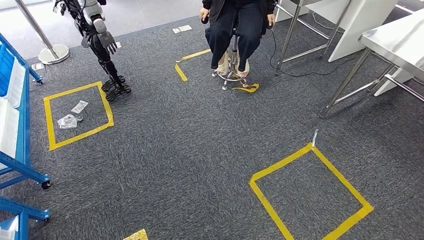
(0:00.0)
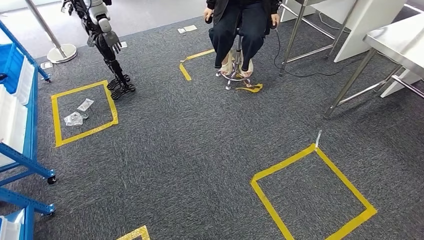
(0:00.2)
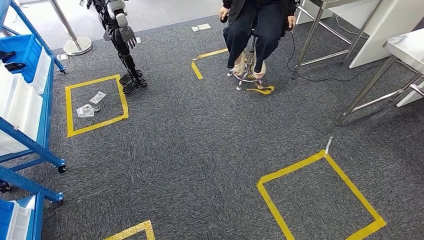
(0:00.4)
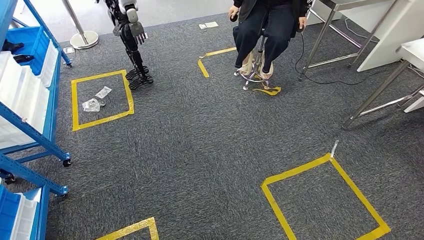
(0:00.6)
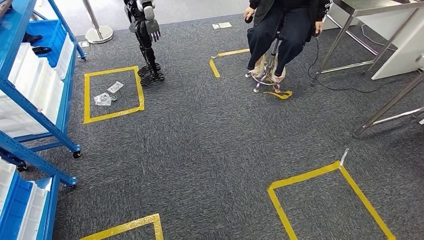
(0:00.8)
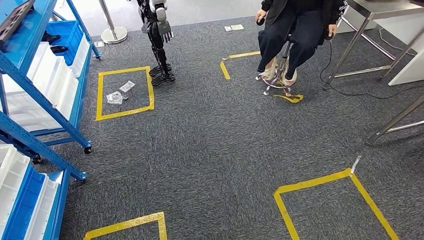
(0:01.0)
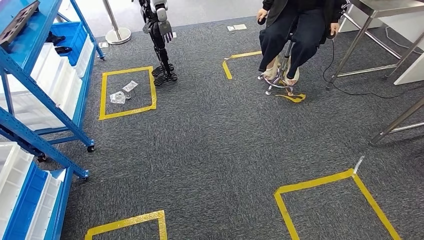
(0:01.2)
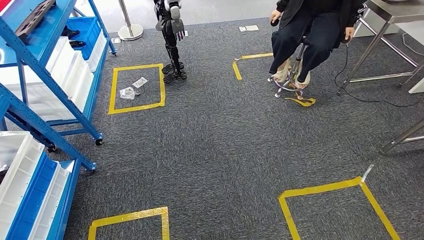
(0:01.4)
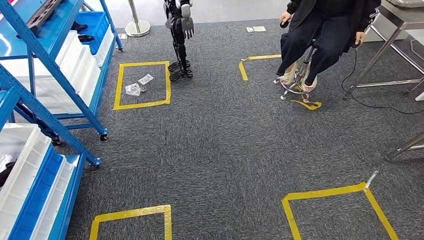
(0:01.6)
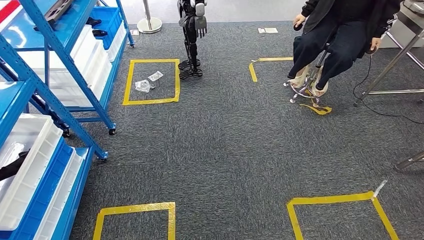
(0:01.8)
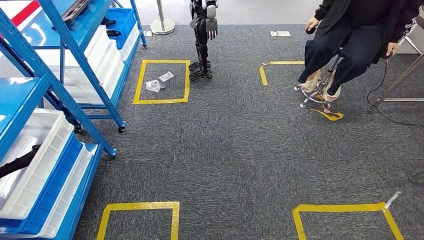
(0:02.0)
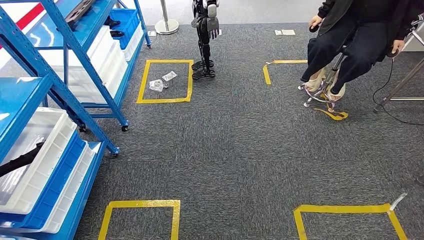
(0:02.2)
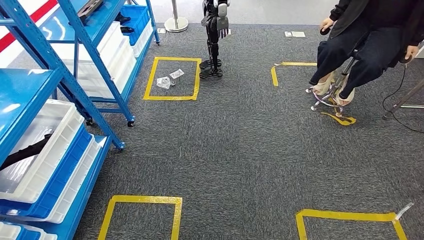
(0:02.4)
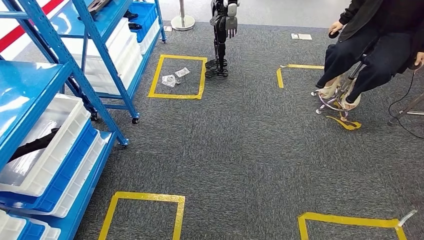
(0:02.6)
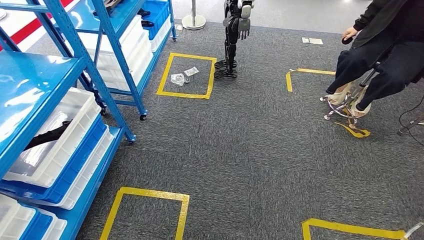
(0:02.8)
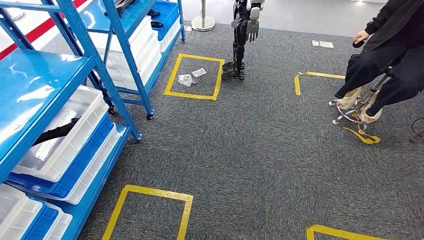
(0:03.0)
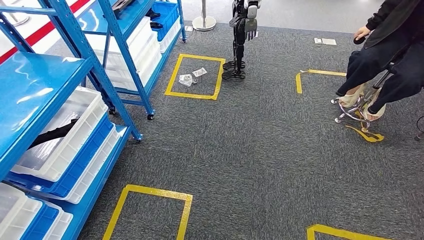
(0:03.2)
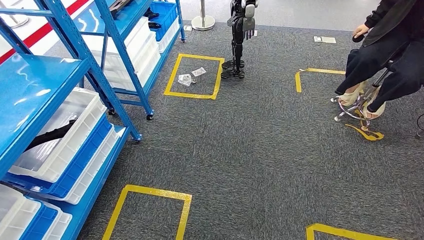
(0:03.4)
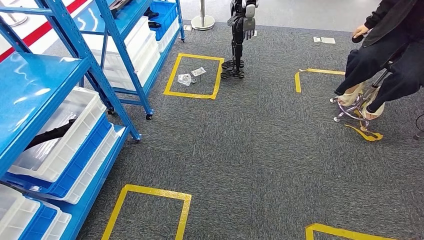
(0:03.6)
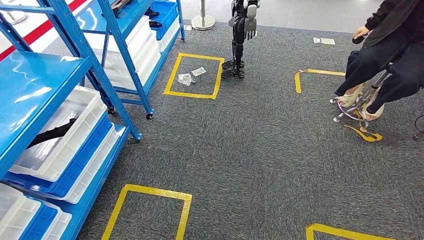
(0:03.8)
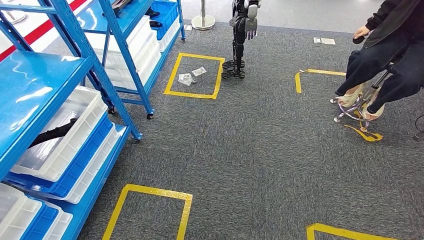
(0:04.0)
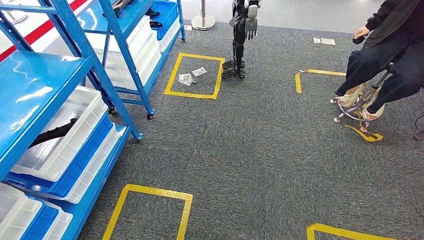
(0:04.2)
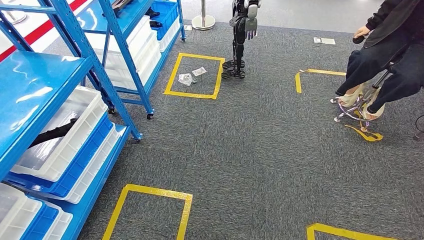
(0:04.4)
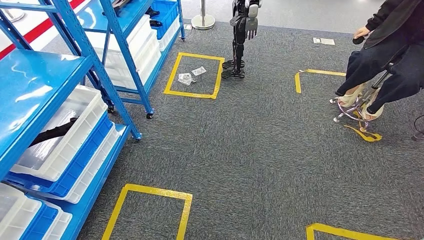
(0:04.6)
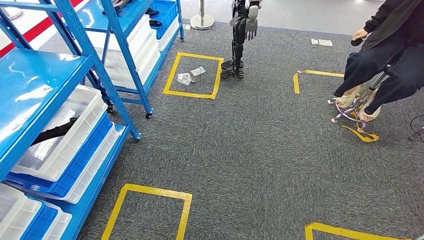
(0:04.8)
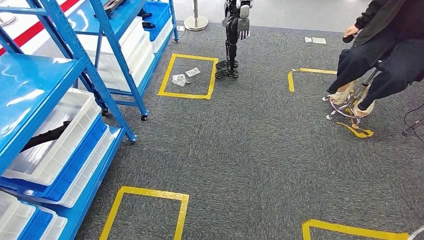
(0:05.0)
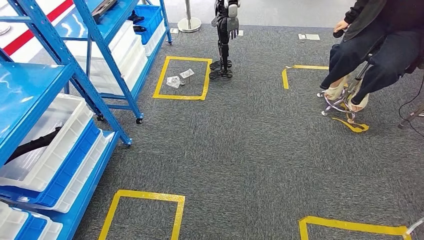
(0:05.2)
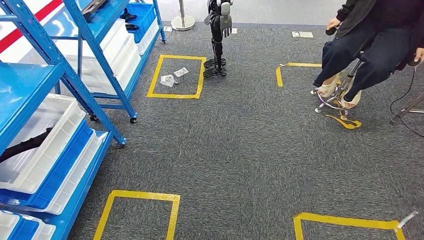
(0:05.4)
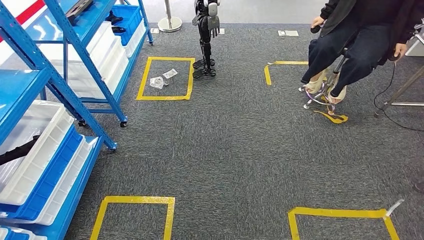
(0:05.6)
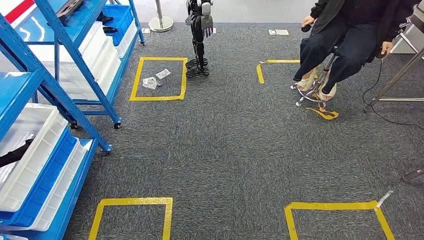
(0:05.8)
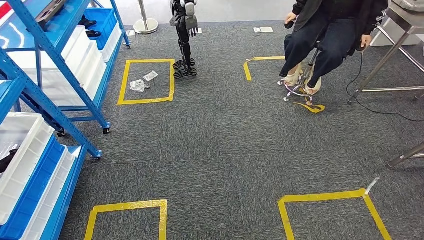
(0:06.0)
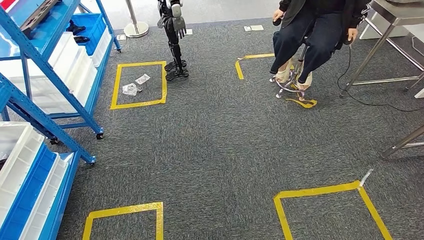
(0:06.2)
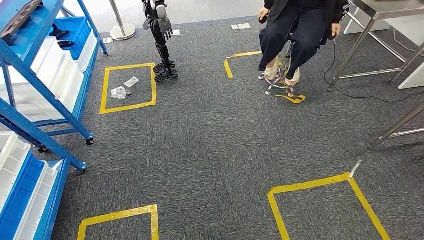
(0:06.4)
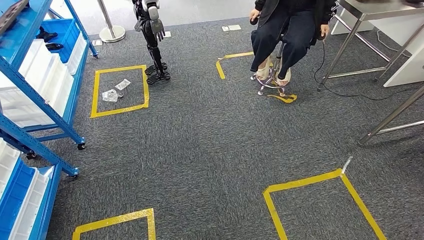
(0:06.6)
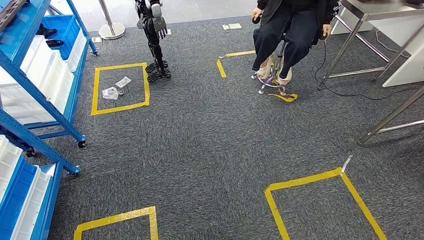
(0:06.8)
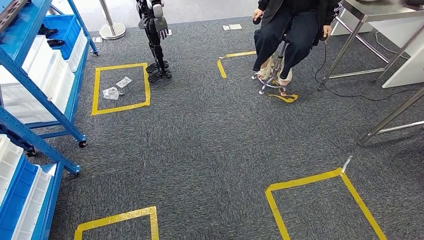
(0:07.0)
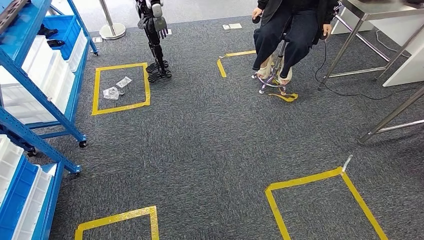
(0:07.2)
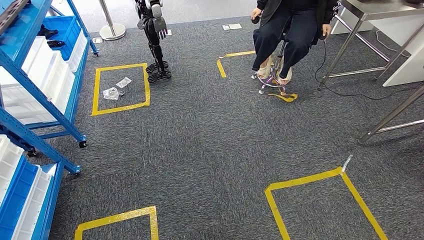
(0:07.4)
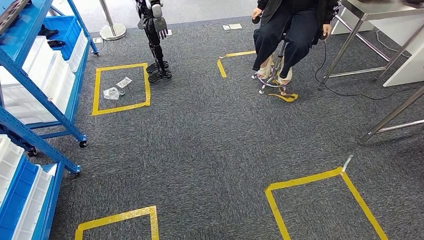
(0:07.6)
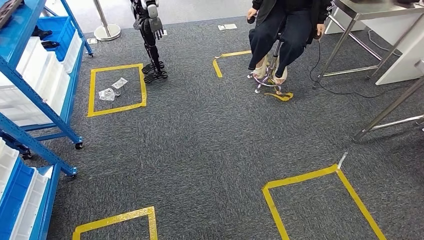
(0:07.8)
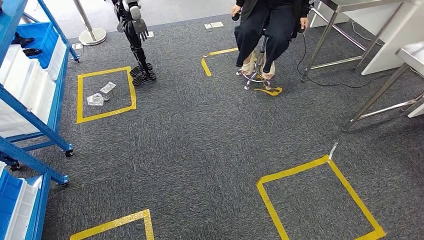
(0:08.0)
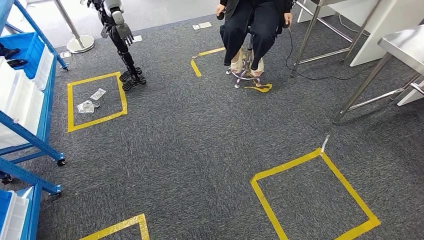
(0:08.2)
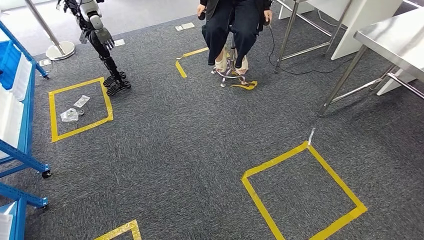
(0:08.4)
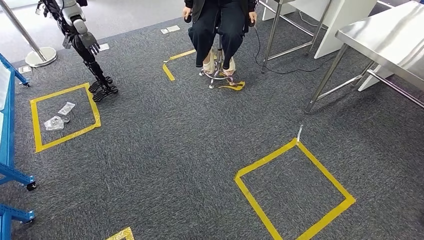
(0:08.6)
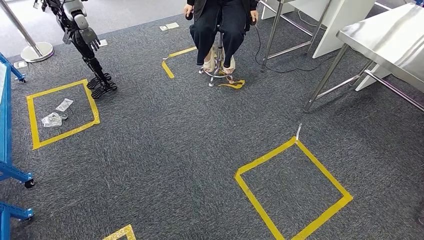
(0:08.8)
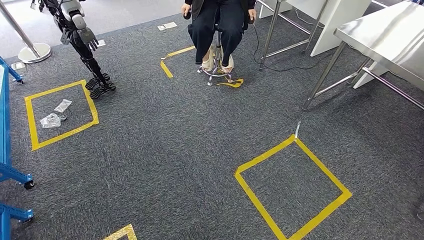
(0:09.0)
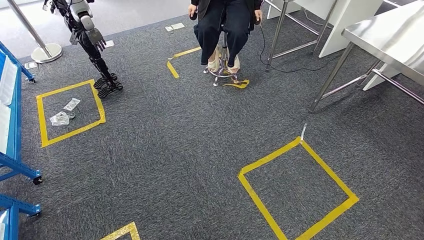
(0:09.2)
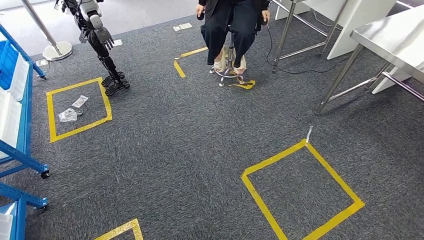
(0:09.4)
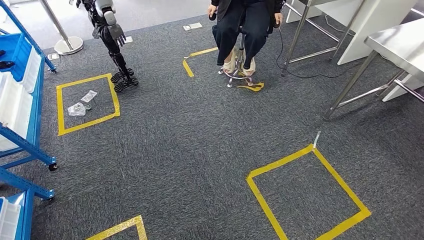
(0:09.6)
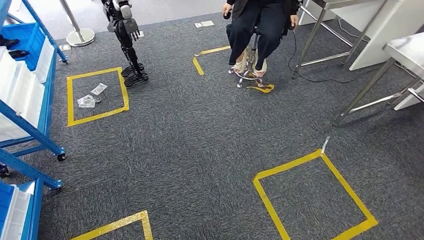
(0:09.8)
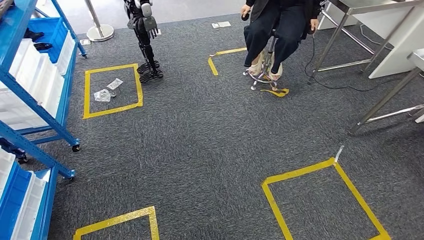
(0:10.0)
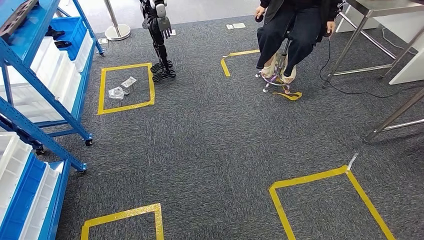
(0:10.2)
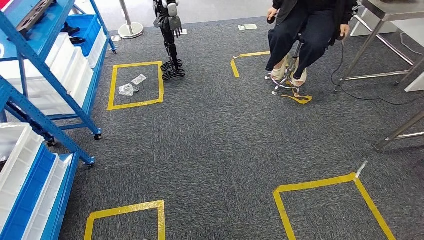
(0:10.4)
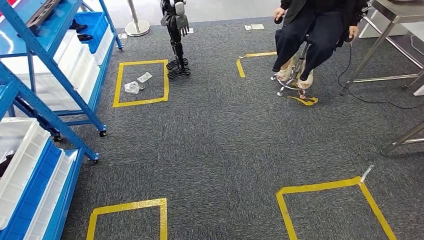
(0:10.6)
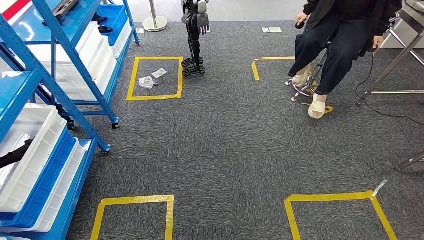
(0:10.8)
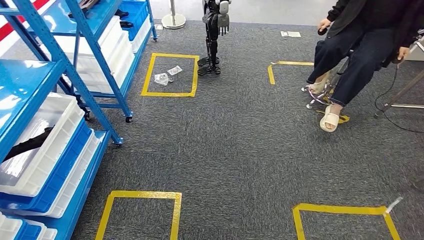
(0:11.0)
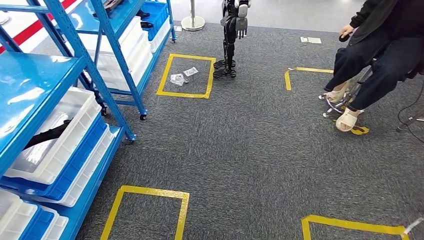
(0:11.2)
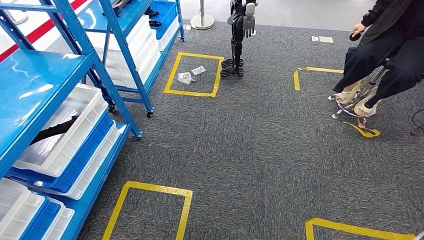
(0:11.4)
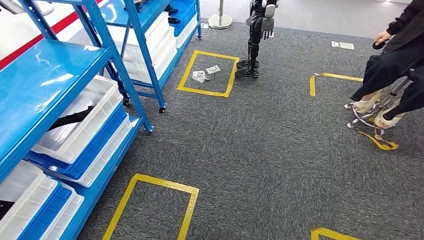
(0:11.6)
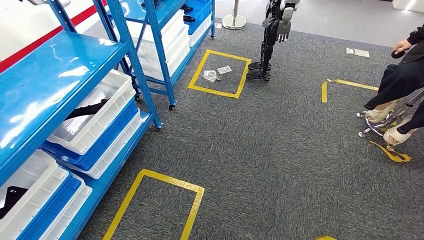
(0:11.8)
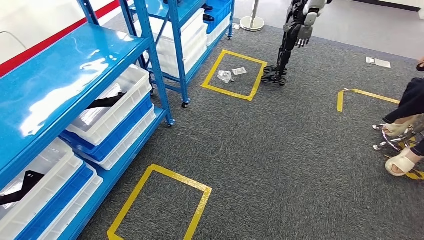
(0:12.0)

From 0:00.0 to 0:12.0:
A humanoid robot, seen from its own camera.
From 0:03.0 to 0:04.4: The two hands keep their place.

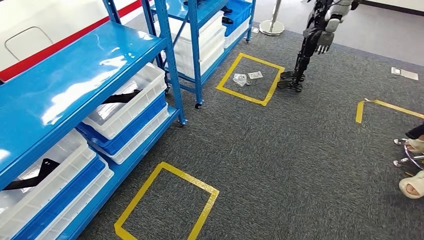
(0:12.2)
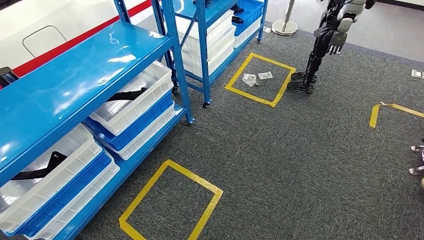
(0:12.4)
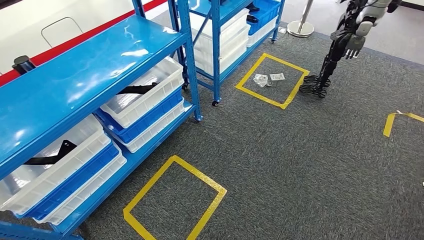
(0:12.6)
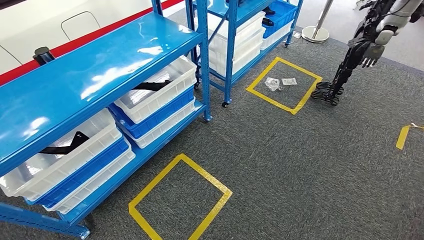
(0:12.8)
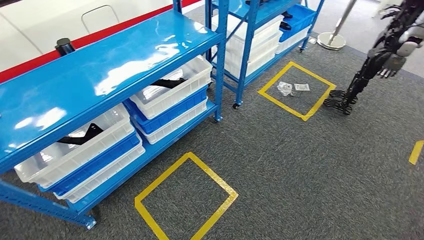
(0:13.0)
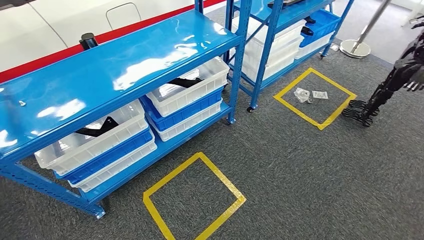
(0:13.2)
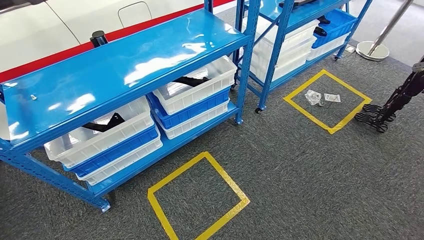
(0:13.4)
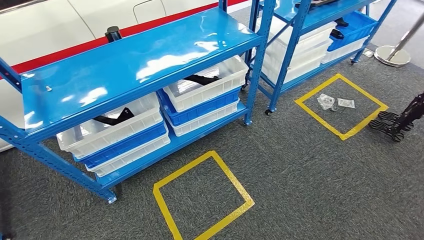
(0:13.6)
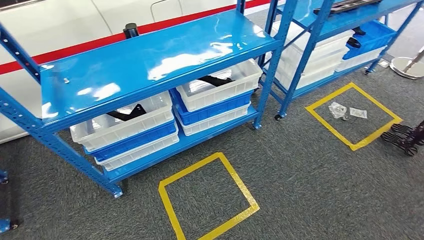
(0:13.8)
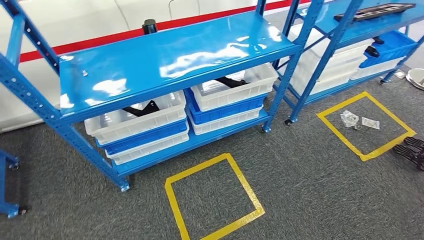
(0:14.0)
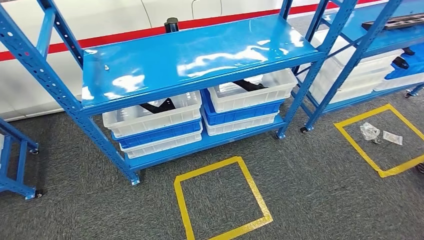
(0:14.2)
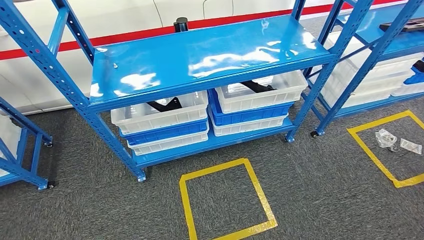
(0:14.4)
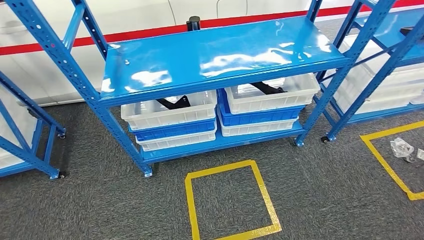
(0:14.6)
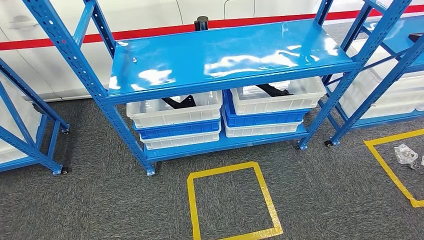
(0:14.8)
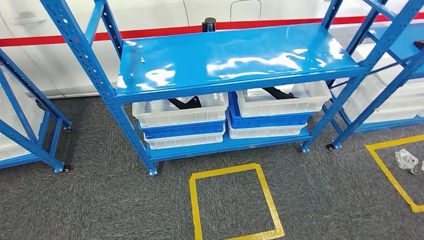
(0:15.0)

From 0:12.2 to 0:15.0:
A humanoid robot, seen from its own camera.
Step, from 0:12.2 to 0:15.0: Return to the initial position at the shelf.
